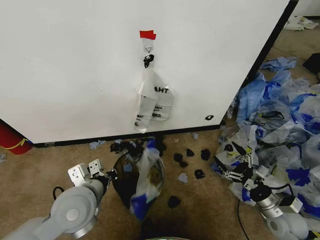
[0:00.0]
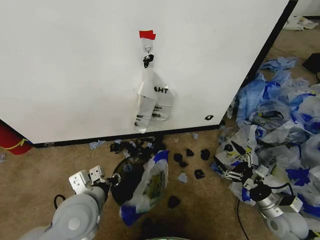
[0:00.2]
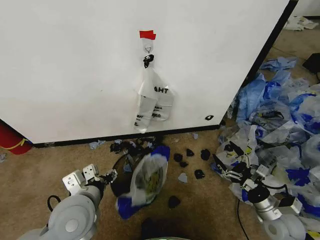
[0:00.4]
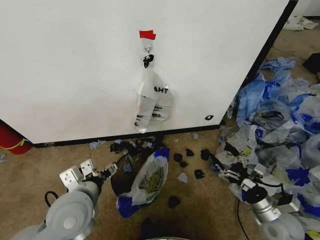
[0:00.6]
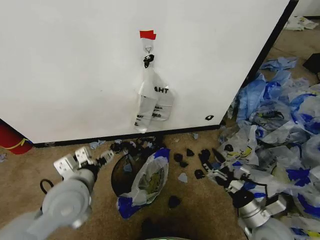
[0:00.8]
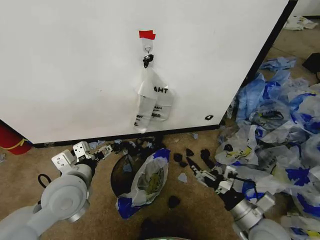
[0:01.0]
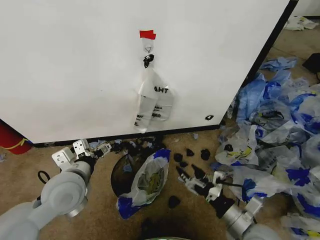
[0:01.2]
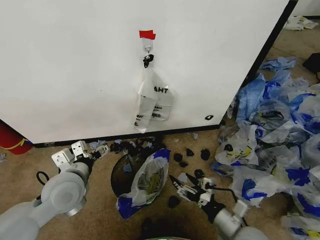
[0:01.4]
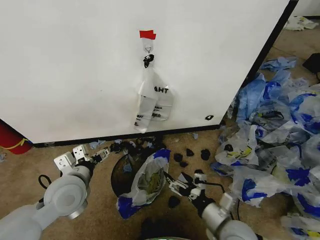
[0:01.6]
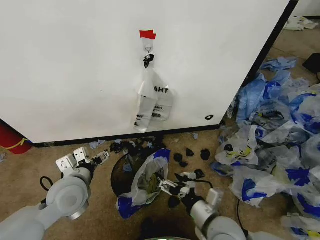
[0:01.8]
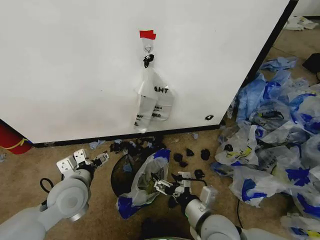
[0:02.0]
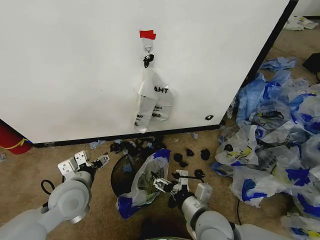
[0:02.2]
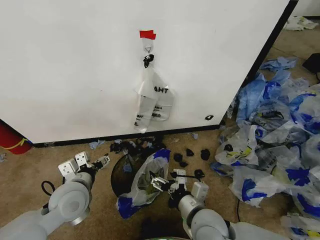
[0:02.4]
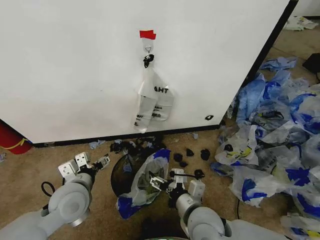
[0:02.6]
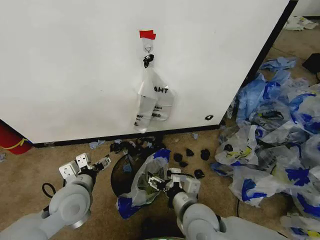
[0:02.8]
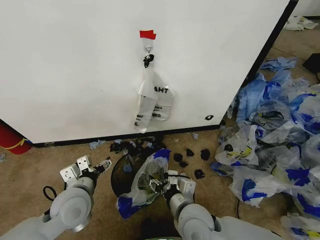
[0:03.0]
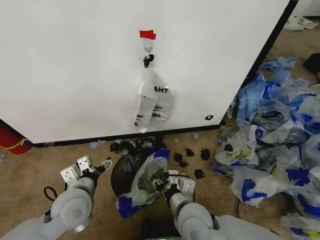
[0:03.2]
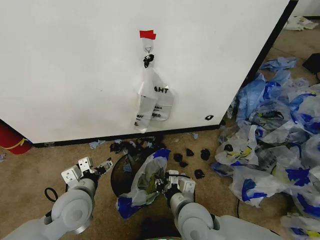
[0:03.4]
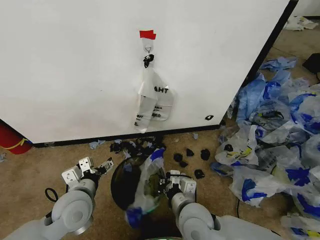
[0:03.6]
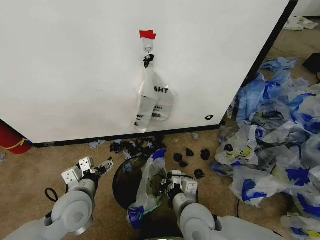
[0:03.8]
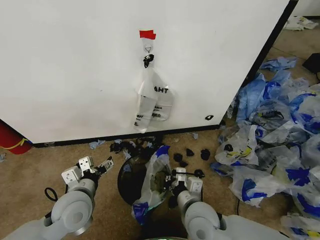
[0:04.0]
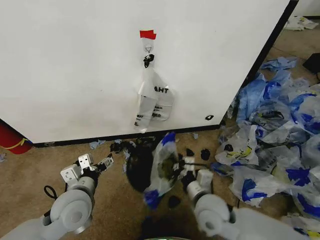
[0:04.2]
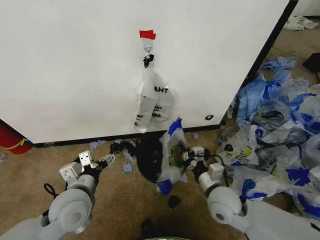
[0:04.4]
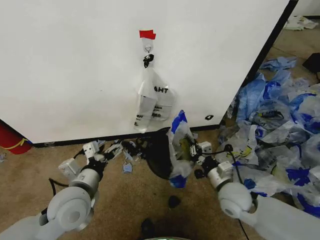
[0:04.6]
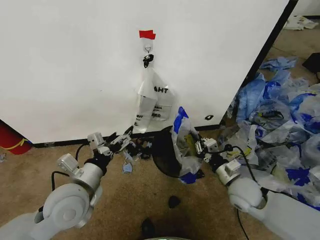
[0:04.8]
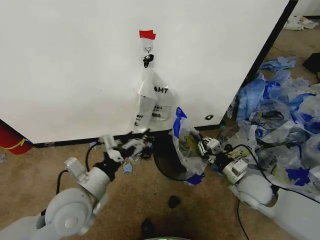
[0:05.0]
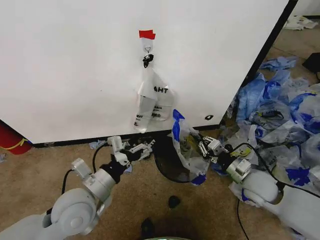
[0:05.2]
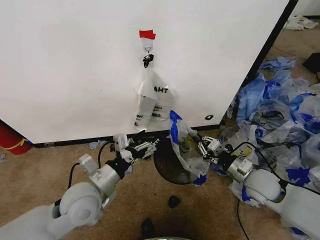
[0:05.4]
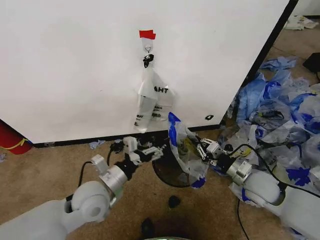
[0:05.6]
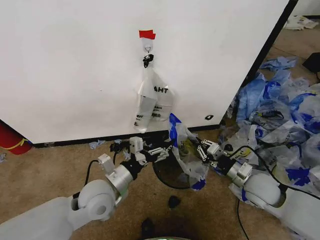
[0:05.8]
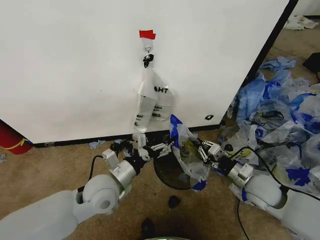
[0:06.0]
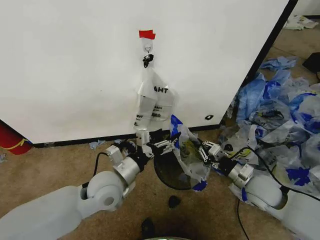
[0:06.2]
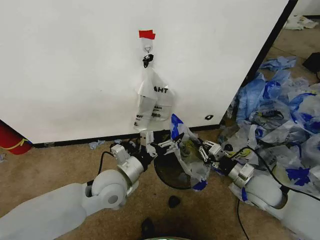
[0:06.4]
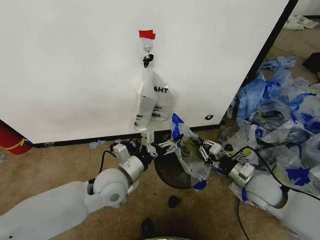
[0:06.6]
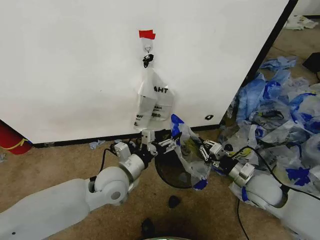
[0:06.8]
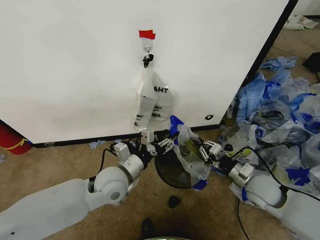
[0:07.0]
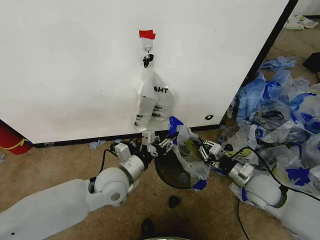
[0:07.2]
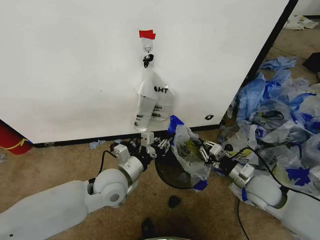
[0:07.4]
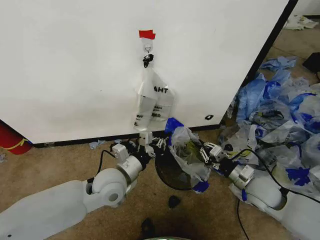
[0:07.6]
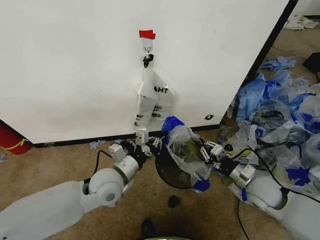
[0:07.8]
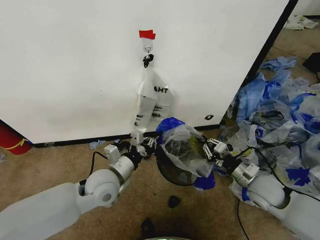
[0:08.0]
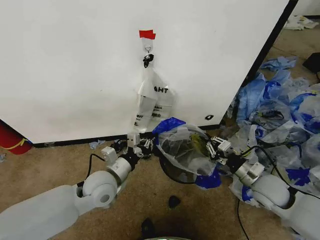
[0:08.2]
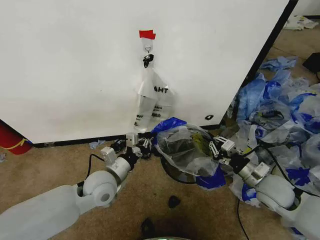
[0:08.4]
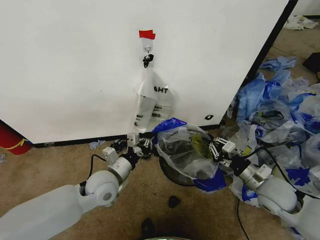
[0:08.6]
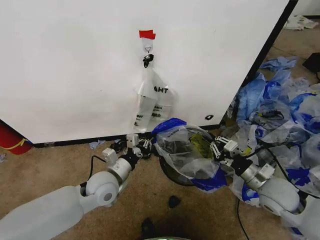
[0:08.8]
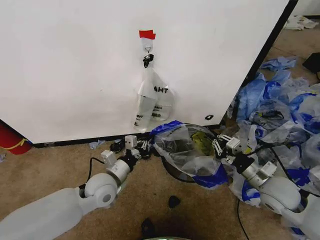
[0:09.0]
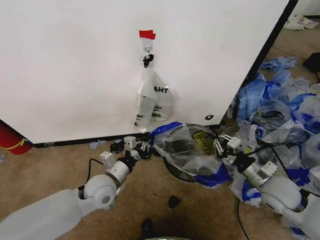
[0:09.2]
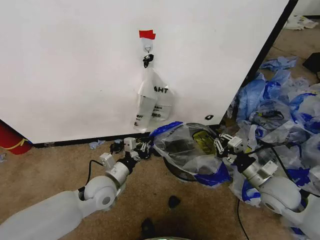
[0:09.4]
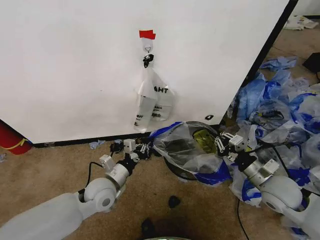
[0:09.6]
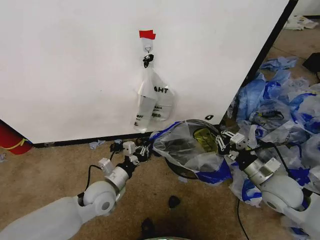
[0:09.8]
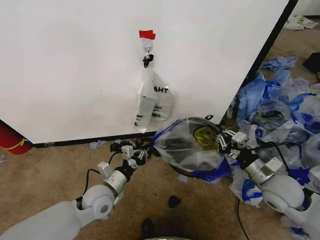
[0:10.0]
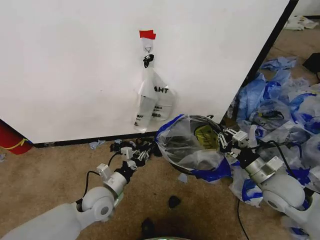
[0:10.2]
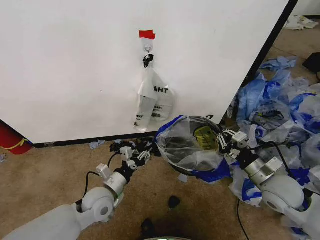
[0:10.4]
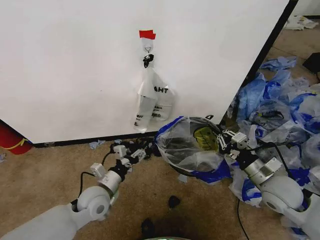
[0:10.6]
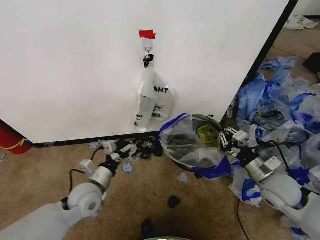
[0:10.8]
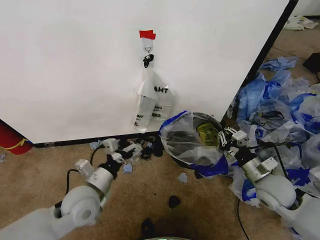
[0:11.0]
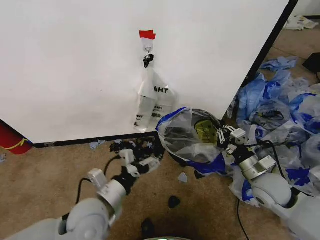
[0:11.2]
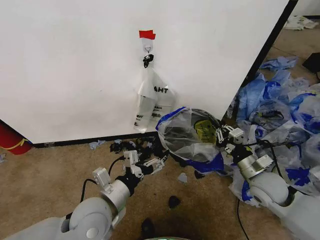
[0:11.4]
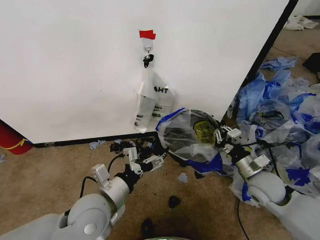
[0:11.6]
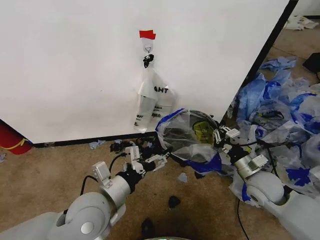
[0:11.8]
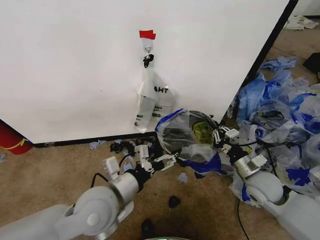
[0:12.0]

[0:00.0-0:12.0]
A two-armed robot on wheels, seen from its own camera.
Task of the whole recording: Pick up the garbage bag from the wall and place it over the trash bin.
0:00.0 to 0:01.6: The right gripper is displaced to the left by some 20 cm, while the left gripper shifts by roughly 5 cm, and opens its fingers.
0:01.6 to 0:03.0: The right gripper moves to the left, roughly 10 cm.
0:03.0 to 0:04.4: The right gripper shifts approximately 10 cm to the right and forward, and closes its fingers.
0:04.4 to 0:06.0: The left gripper goes approximately 5 cm to the right; the right gripper travels to the right by roughly 15 cm.
0:06.0 to 0:07.6: The left gripper closes.
0:07.6 to 0:09.0: The left gripper ends up roughly 5 cm from where it was.
0:09.0 to 0:10.4: The left gripper ends up approximately 5 cm from where it was, and opens.
0:10.4 to 0:12.0: The left gripper heads upward and backward, covering roughly 15 cm, and opens up.

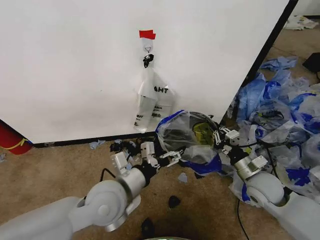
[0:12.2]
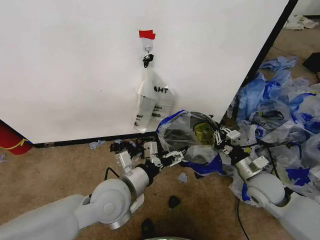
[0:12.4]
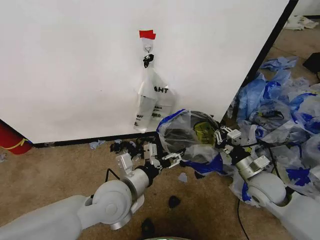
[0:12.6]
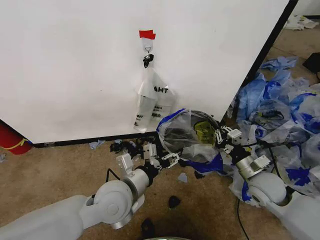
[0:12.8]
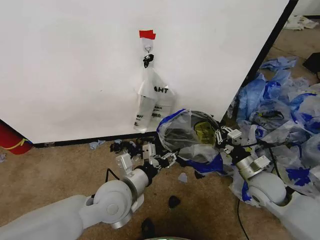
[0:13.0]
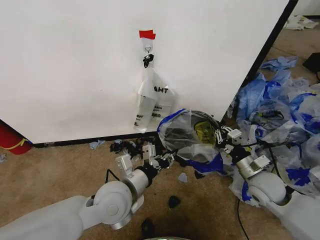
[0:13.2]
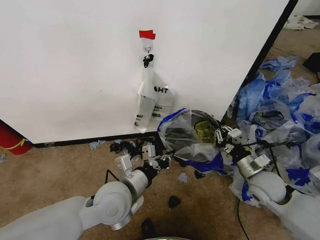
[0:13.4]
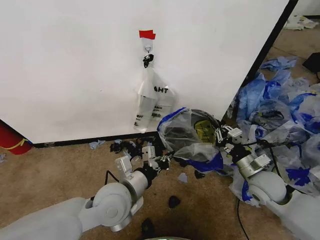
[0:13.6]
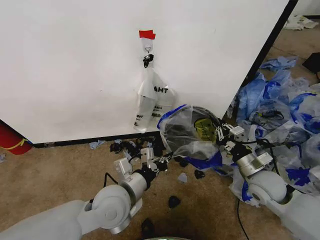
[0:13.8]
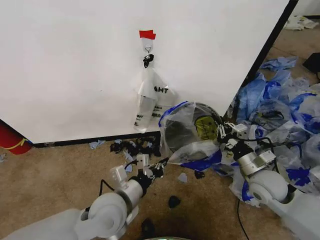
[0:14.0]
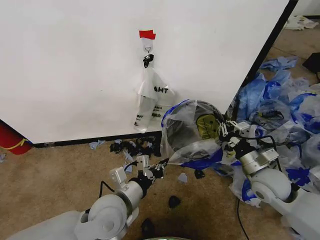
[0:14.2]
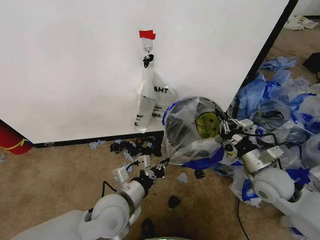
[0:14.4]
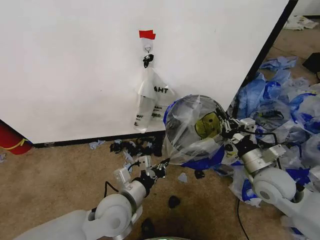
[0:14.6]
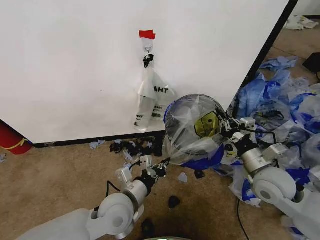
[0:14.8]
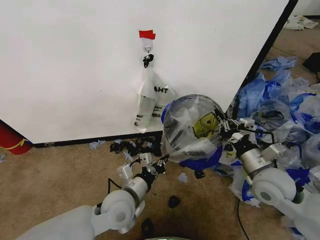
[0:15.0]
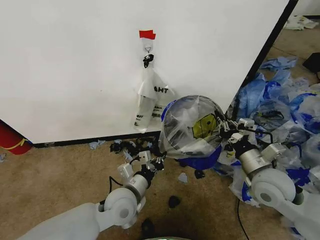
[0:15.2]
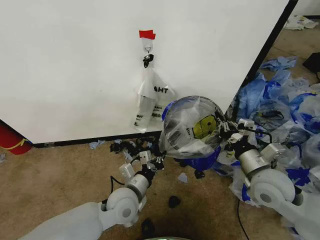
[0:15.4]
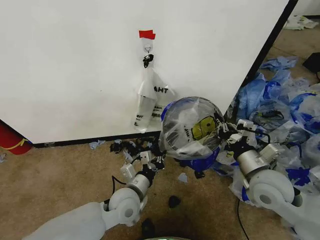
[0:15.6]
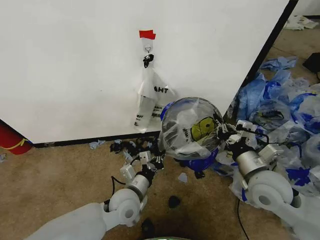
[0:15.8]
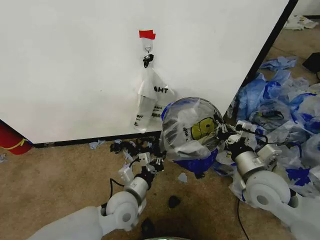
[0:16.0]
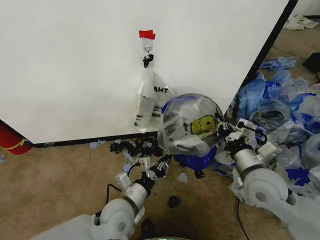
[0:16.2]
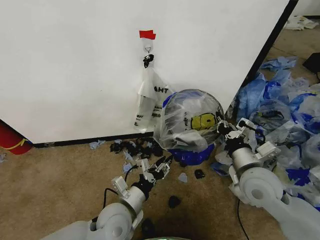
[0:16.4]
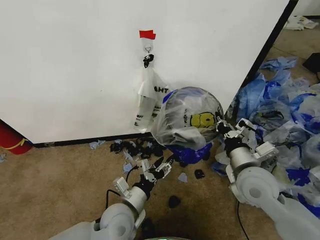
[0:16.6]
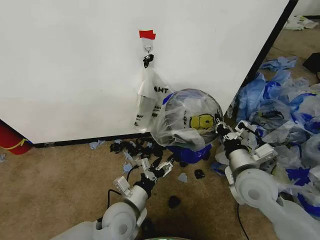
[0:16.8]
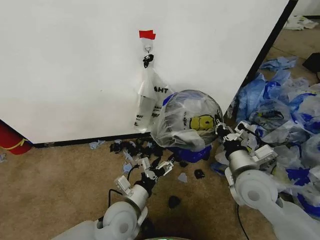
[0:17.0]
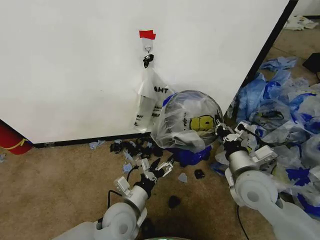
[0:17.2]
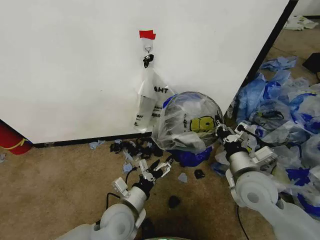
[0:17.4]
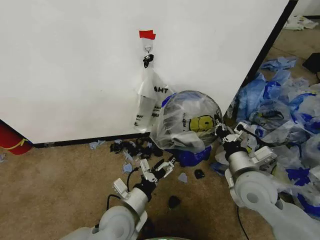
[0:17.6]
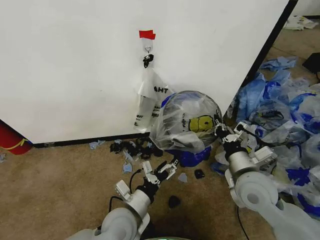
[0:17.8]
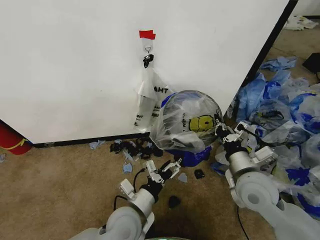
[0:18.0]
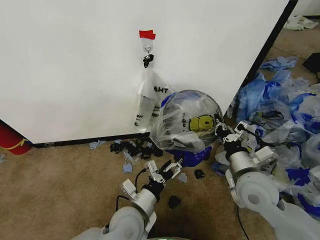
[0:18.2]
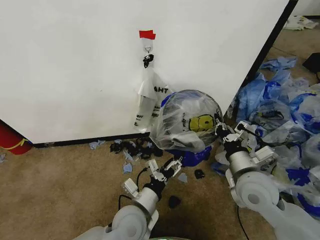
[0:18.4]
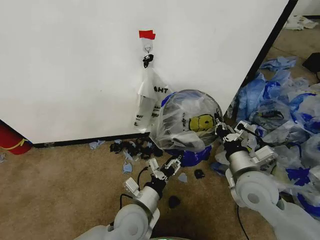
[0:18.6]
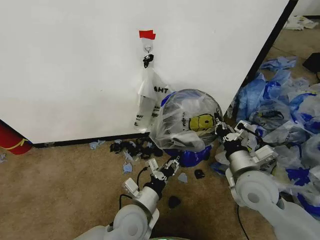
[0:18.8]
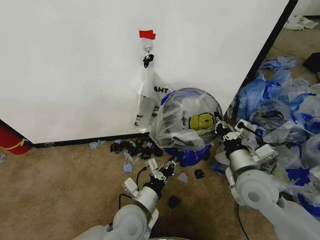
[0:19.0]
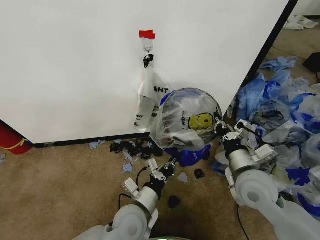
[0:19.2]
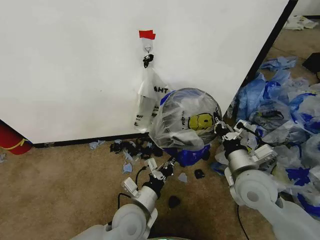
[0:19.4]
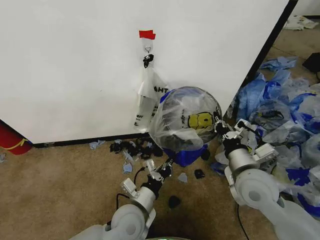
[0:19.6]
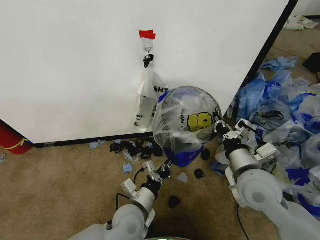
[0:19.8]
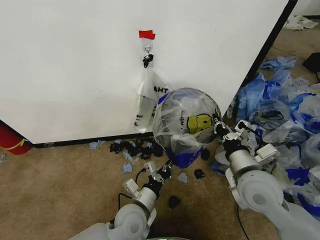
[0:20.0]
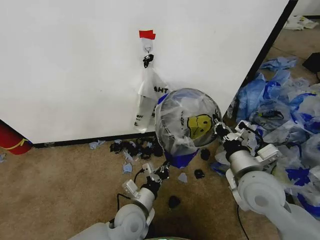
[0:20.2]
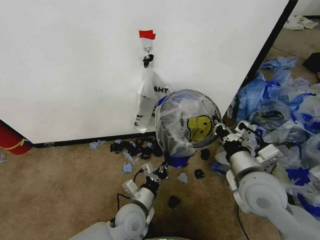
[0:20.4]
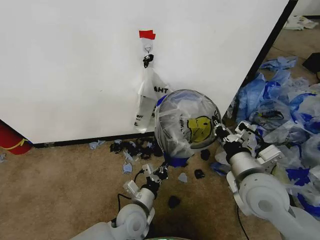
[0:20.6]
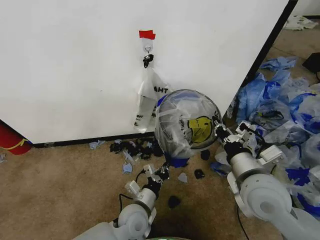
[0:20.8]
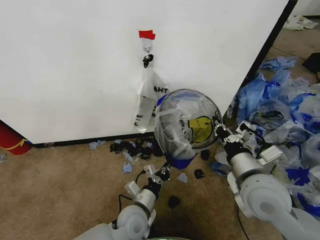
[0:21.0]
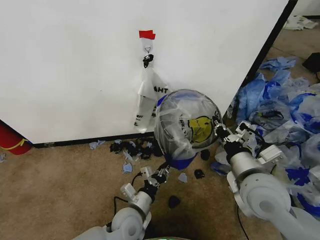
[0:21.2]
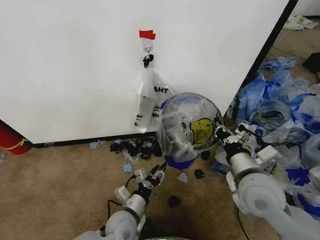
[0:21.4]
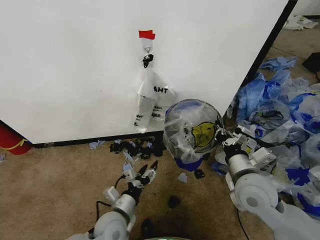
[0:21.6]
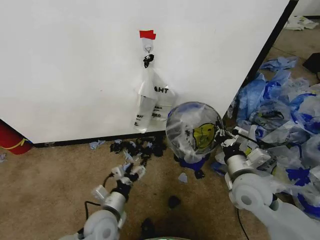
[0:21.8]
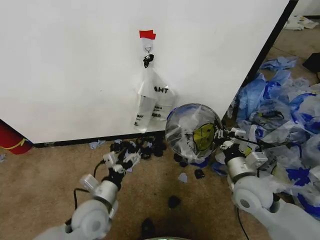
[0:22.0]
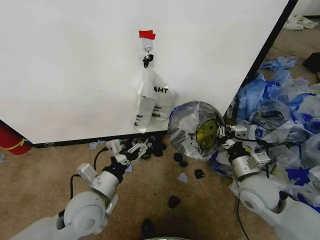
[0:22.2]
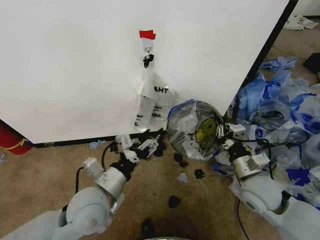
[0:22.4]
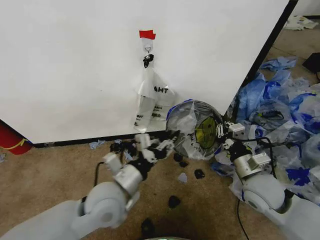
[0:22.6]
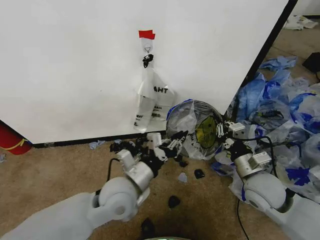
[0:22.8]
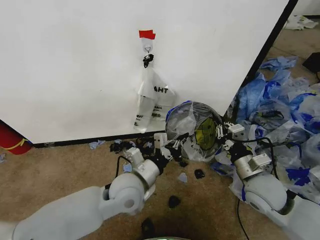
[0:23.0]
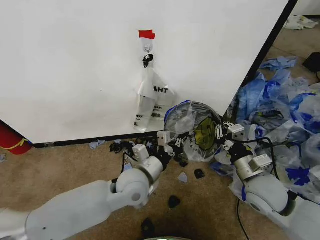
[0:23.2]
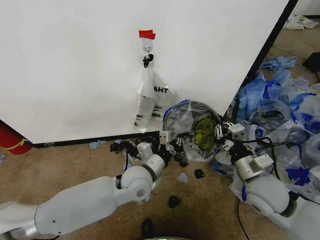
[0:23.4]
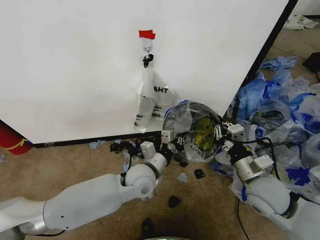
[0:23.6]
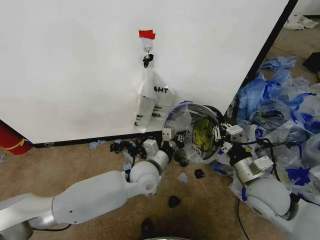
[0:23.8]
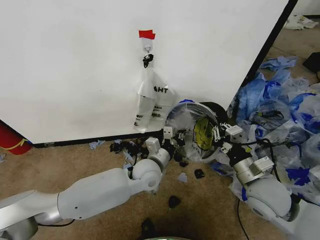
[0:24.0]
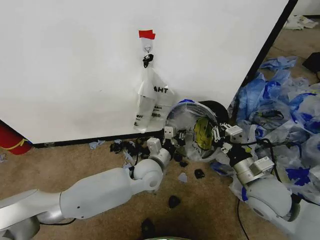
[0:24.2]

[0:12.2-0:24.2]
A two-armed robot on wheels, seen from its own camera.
Task of the whole recording: Pick up the garbage bag from the wall and place it over the trash bin.
0:12.2 to 0:13.8: The left gripper closes.
0:13.8 to 0:15.2: The left gripper is displaced downward by approximately 5 cm; the right gripper goes roughly 5 cm upward.
0:15.2 to 0:16.6: The left gripper opens. The right gripper ends up approximately 5 cm from where it was.
0:16.6 to 0:18.2: The grippers stay close to where they were, moving slightly.
0:18.2 to 0:19.8: The left gripper closes.
0:19.8 to 0:21.2: The grippers make only small movements.
0:21.2 to 0:22.6: The left gripper goes about 15 cm upward, and opens and closes again. The right gripper heads downward and to the right, covering about 10 cm.
0:22.6 to 0:24.2: The left gripper moves forward, to the right and downward, some 15 cm, and closes.
